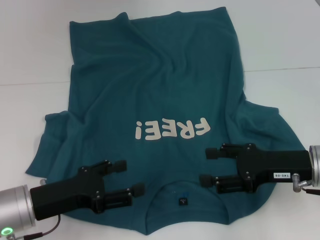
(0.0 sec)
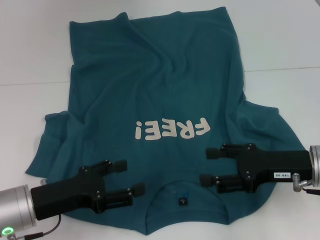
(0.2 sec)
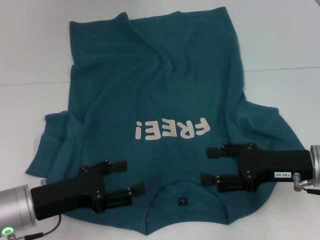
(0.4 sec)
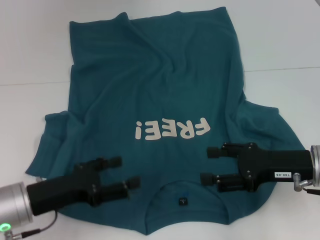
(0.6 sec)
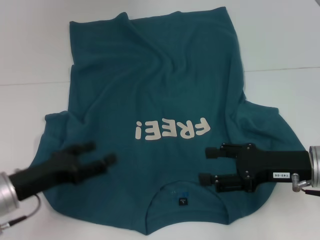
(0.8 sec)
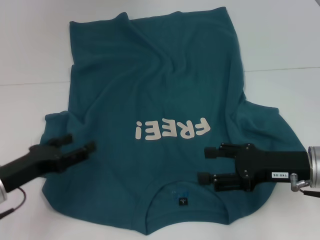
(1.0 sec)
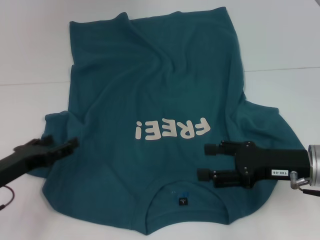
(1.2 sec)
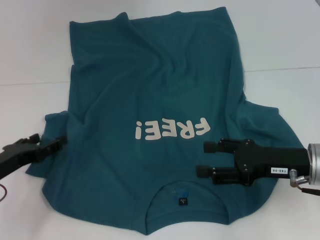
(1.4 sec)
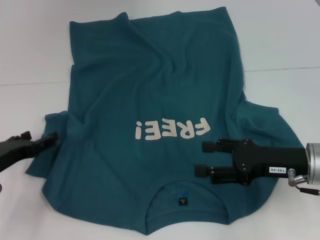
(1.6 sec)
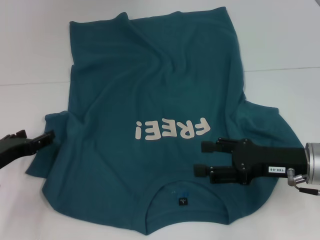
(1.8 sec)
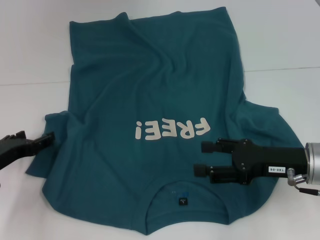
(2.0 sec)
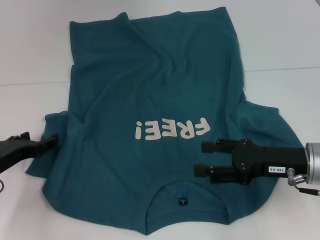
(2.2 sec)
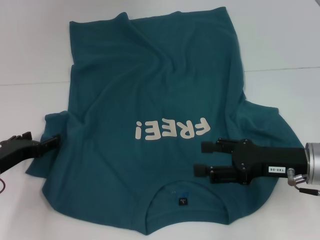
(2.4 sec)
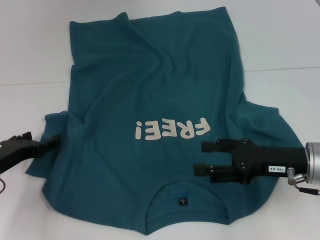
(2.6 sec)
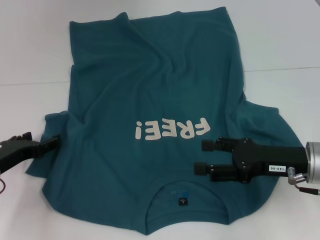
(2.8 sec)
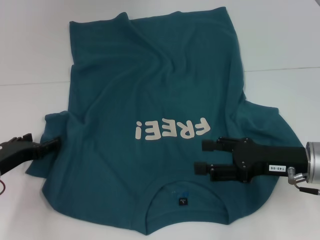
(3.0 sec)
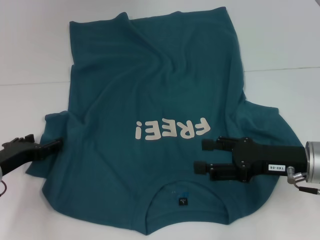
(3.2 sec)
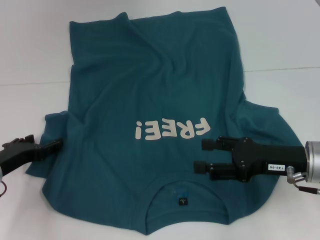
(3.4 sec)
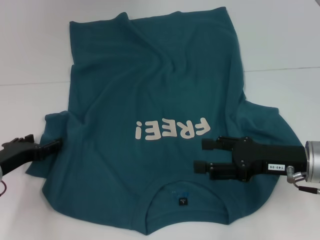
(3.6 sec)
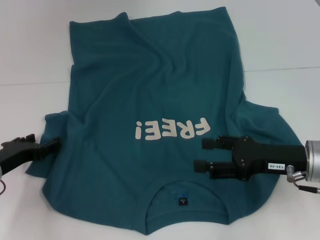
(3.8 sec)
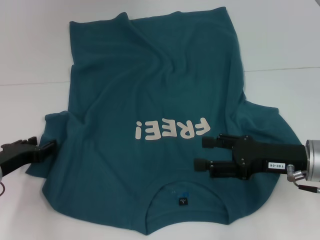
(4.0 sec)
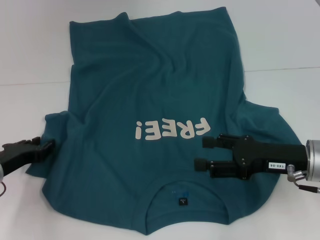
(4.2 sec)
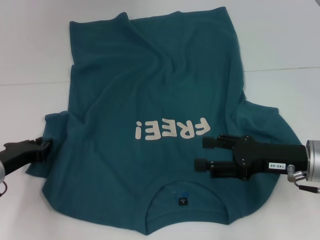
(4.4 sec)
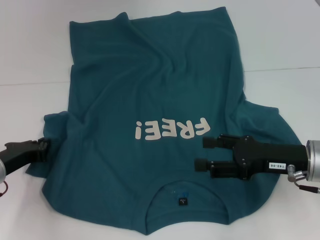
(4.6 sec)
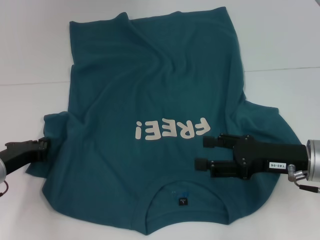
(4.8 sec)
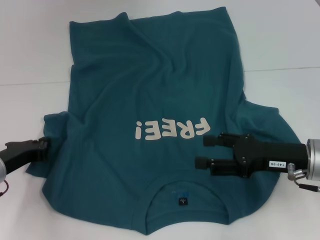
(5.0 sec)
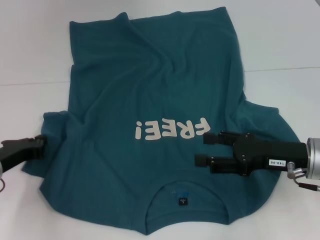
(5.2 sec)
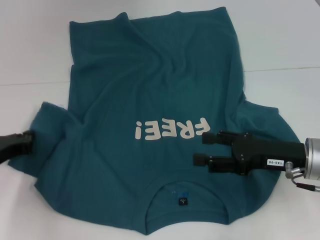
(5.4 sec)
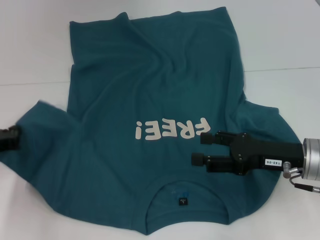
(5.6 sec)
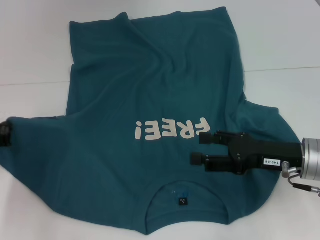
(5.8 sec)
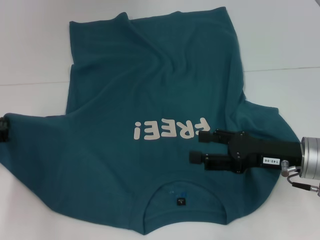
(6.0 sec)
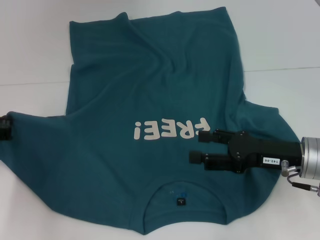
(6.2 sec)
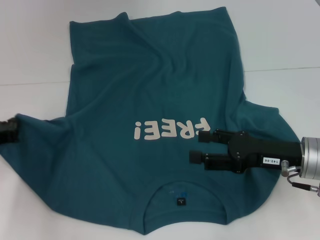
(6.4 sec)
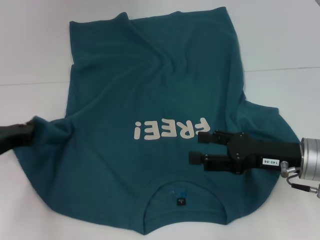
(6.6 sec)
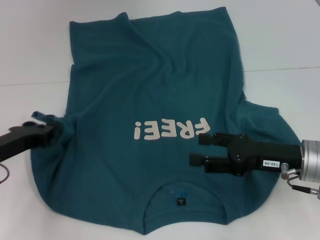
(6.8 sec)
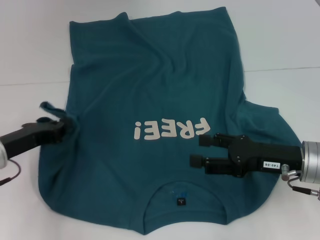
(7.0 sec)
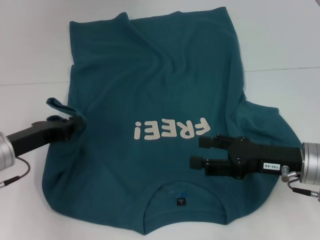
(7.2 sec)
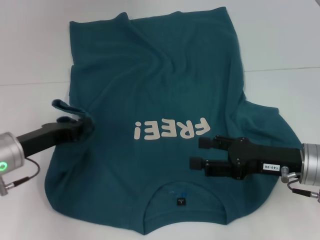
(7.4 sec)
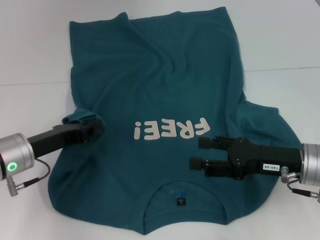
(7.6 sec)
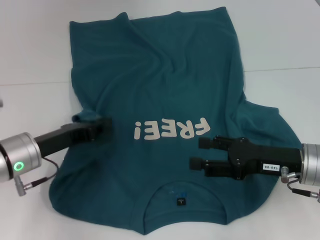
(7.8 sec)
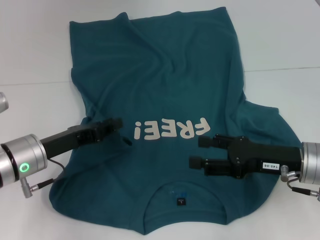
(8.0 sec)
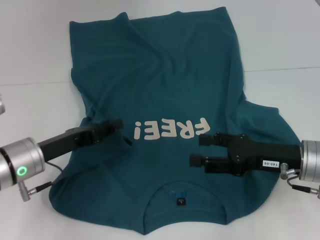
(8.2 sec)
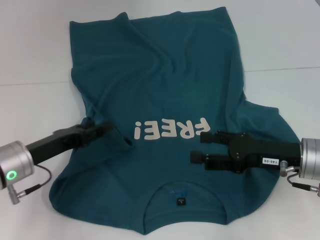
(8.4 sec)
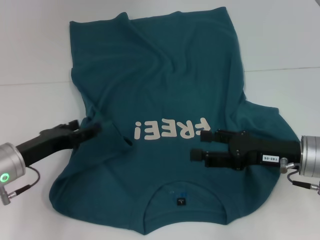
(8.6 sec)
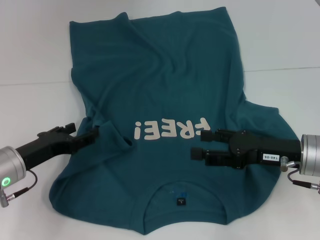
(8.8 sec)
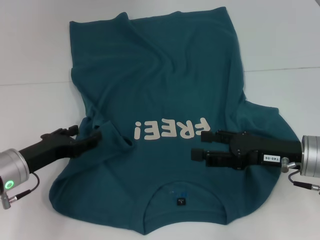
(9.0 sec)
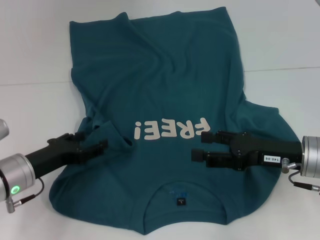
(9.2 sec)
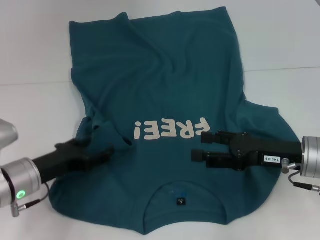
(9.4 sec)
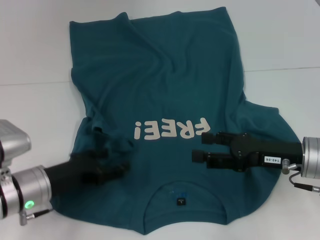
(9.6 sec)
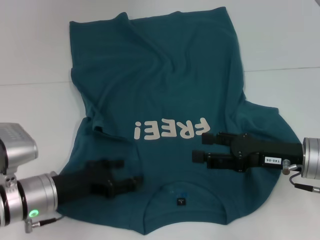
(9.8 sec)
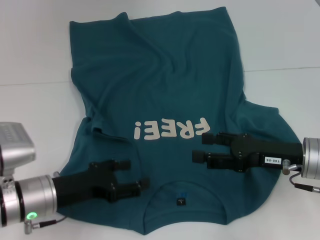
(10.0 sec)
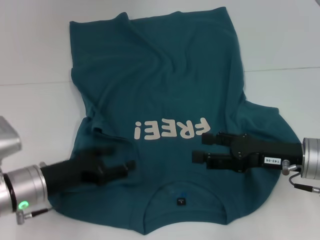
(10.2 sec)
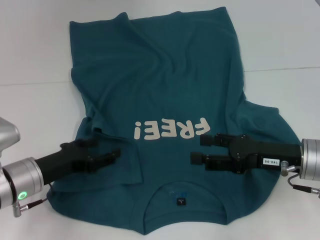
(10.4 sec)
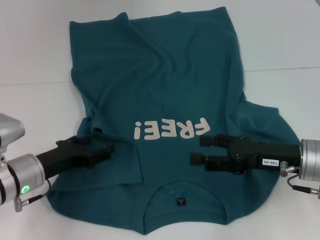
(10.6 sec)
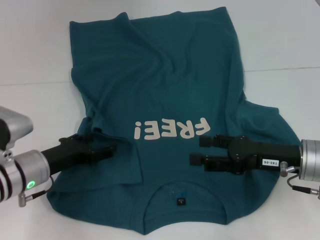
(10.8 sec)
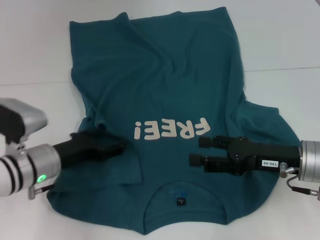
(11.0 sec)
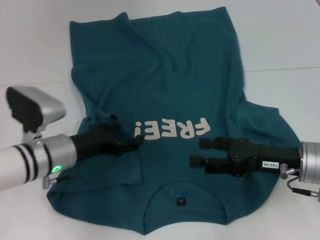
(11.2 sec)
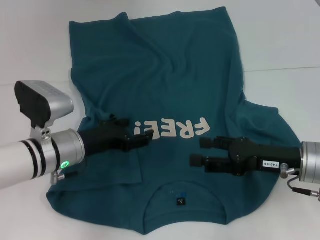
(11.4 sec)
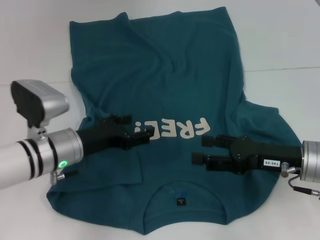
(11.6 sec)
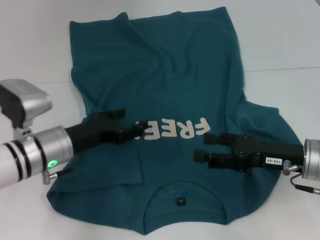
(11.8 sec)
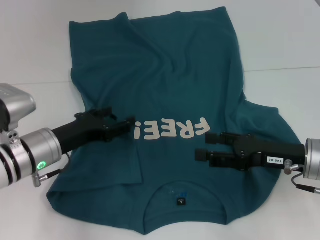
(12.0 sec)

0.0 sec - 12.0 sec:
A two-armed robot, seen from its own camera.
0.0 sec - 1.6 sec: The left gripper goes approximately 5 cm to the left.
1.6 sec - 3.0 sec: The grippers move only a little.
3.0 sec - 4.4 sec: The left gripper closes up.
4.4 sec - 6.0 sec: The left gripper ends up approximately 5 cm from where it was, and closes up.
6.0 sec - 7.6 sec: The left gripper travels to the right by approximately 10 cm.
7.6 sec - 9.0 sec: The left gripper opens its fingers.
10.4 sec - 12.0 sec: The left gripper shifts by some 5 cm.

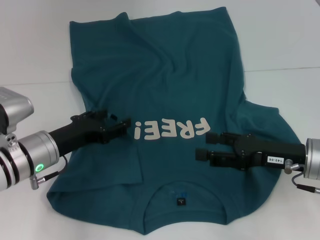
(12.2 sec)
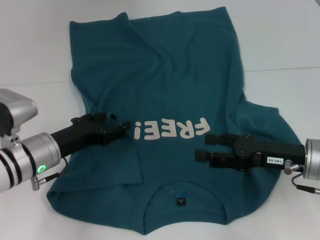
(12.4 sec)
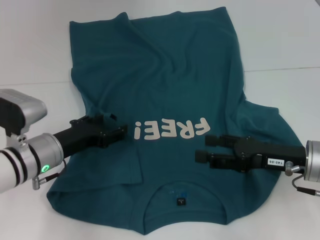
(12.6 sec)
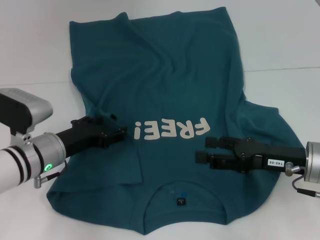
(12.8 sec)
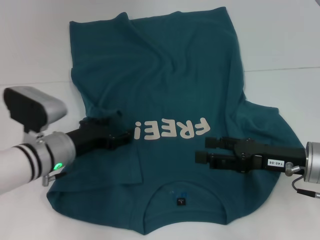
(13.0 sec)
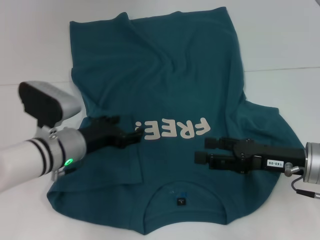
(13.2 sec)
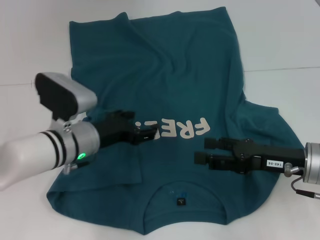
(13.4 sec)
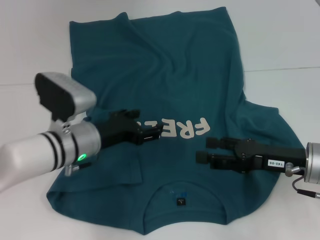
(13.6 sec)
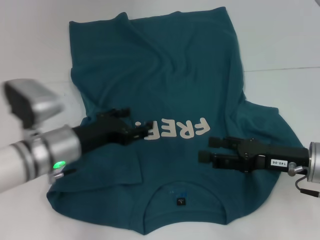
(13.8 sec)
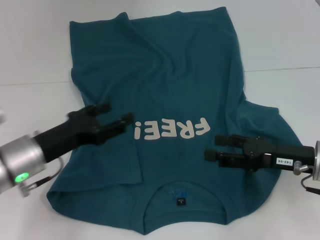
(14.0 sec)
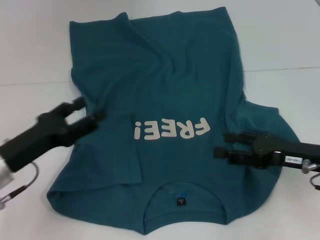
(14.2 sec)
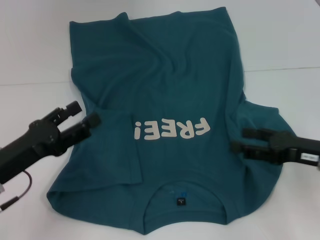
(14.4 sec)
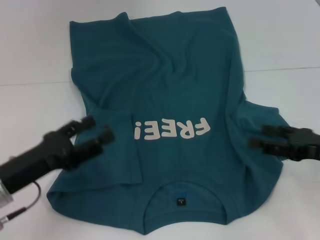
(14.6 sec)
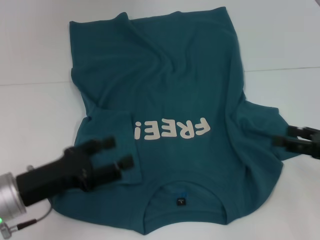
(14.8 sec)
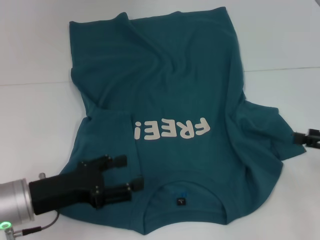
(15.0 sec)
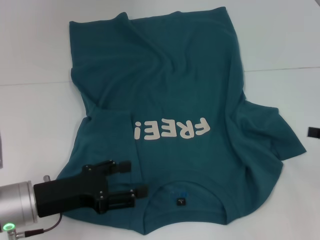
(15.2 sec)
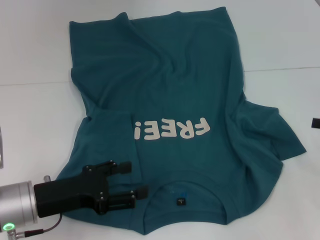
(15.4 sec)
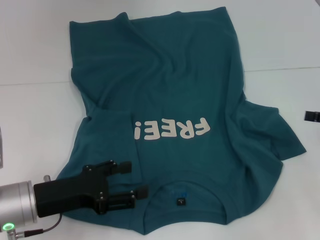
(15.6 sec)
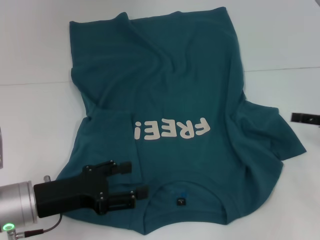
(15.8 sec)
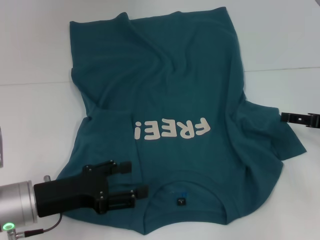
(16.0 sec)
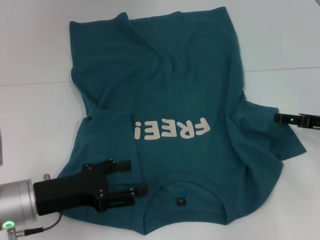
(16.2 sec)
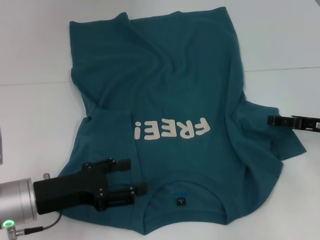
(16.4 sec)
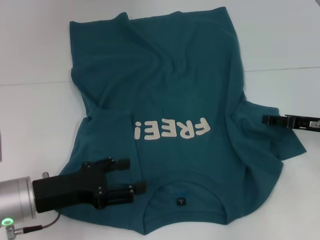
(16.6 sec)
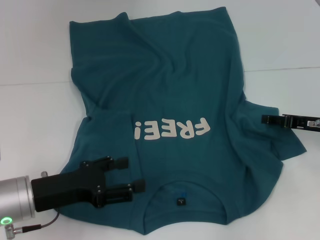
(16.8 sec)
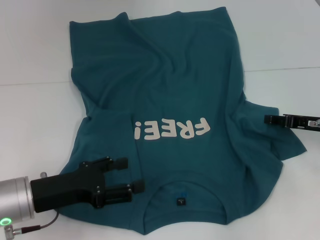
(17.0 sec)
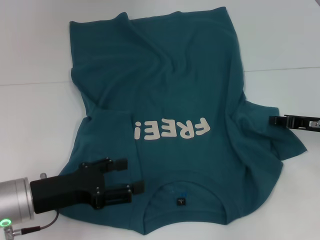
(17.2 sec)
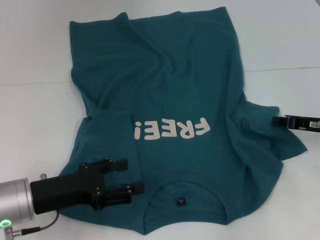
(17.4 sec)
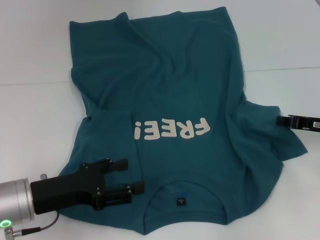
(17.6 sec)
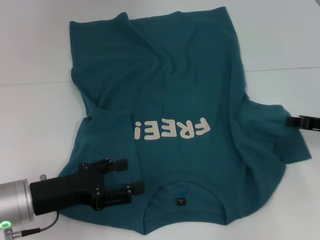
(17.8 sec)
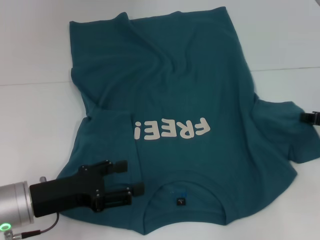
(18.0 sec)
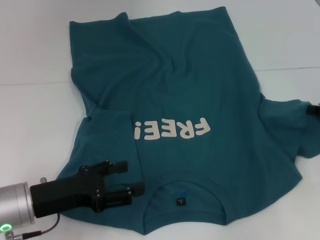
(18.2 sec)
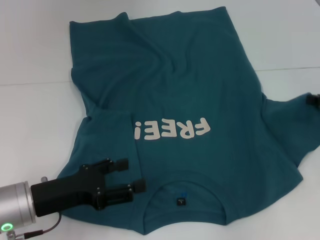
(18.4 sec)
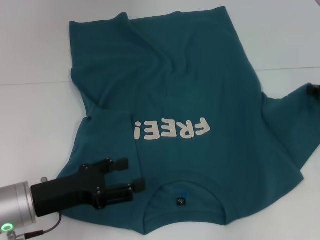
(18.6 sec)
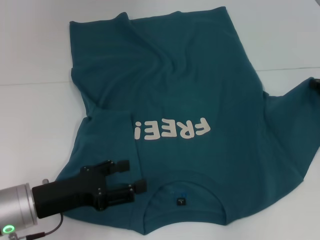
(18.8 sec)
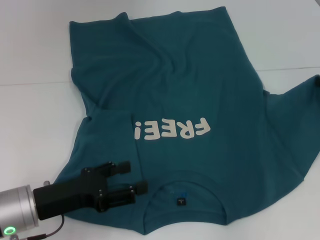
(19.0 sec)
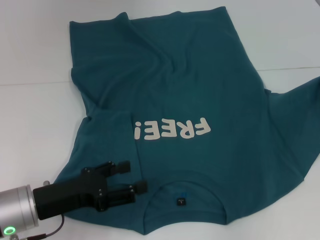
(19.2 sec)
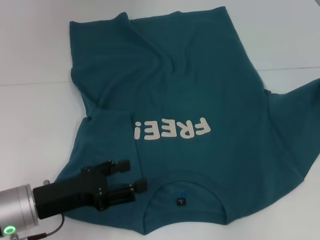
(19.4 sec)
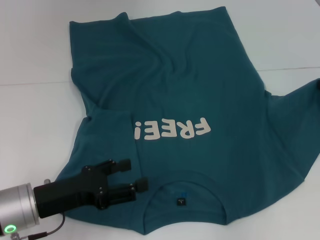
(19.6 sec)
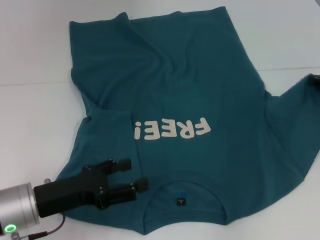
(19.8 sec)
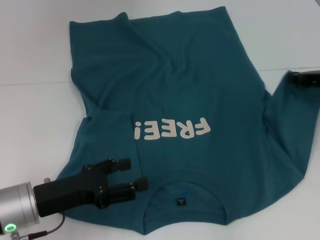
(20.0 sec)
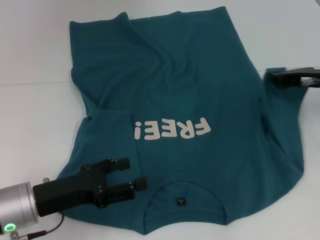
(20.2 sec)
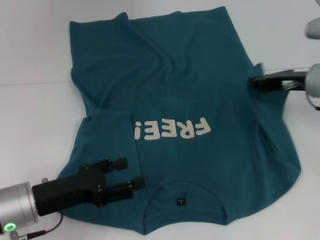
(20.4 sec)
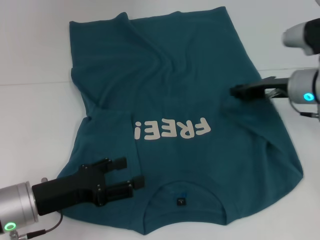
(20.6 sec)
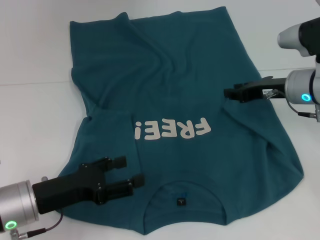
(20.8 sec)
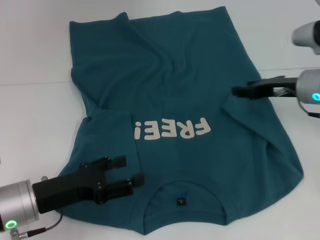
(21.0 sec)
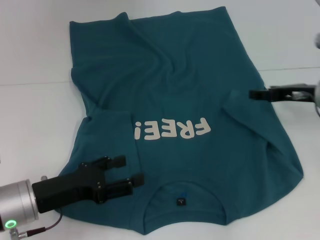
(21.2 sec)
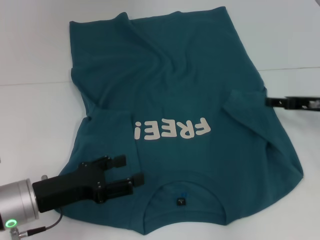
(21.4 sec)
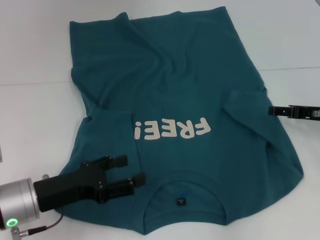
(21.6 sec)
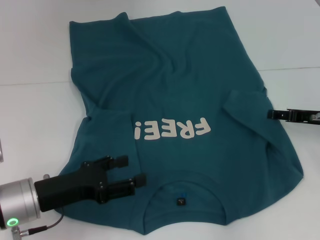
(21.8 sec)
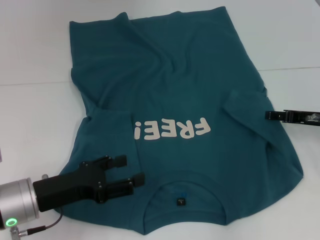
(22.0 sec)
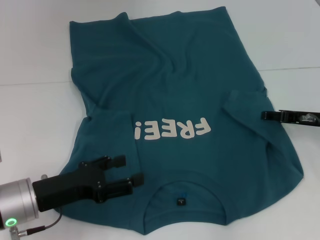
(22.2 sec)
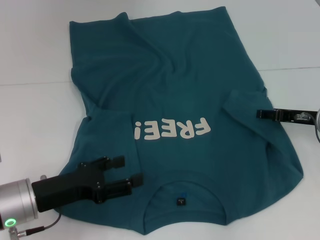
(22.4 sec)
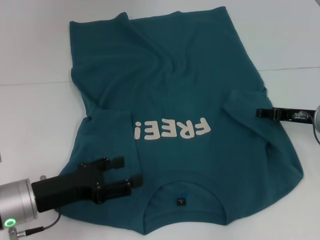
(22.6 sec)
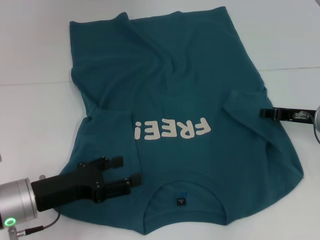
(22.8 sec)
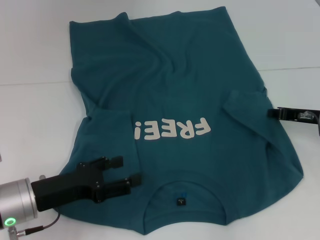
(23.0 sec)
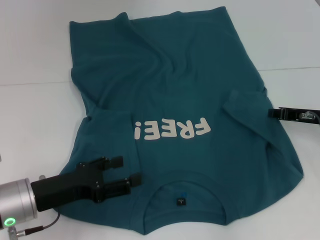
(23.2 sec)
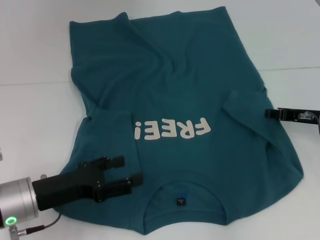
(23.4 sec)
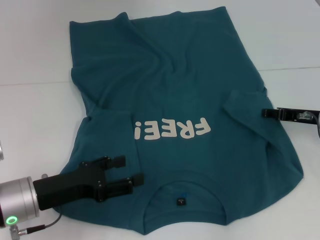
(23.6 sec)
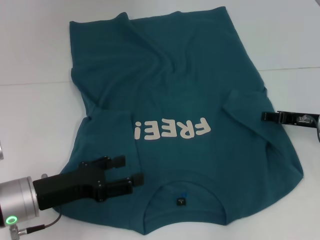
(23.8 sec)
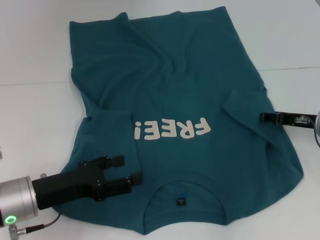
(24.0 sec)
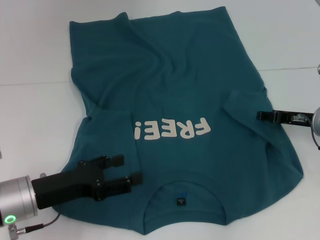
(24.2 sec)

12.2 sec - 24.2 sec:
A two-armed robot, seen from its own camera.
13.8 sec - 15.2 sec: The left gripper moves backward, roughly 5 cm. Meanwhile the right gripper shifts roughly 15 cm to the right.
15.2 sec - 16.6 sec: The right gripper goes some 10 cm to the left and forward.
16.6 sec - 18.2 sec: The right gripper shifts by some 5 cm, and closes.
18.2 sec - 19.8 sec: The grippers stay close to where they were, moving slightly.
19.8 sec - 21.2 sec: The right gripper goes about 5 cm to the left, and opens.
21.2 sec - 22.6 sec: The grippers make only small movements.
22.6 sec - 24.2 sec: The right gripper closes, then opens again.
